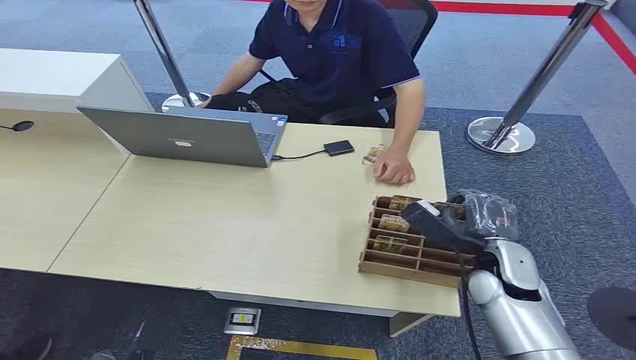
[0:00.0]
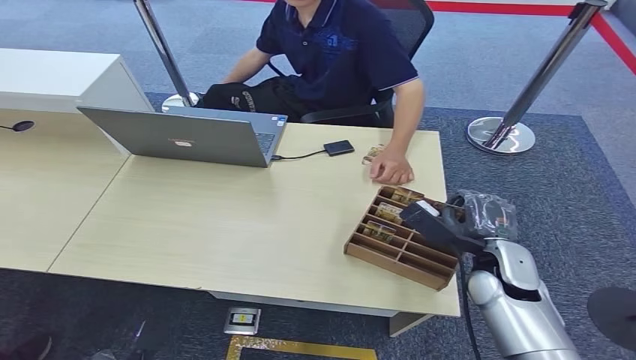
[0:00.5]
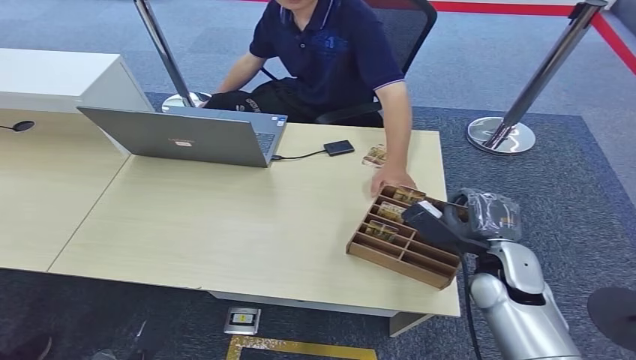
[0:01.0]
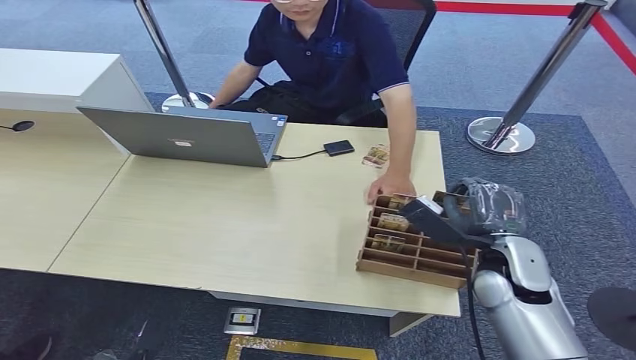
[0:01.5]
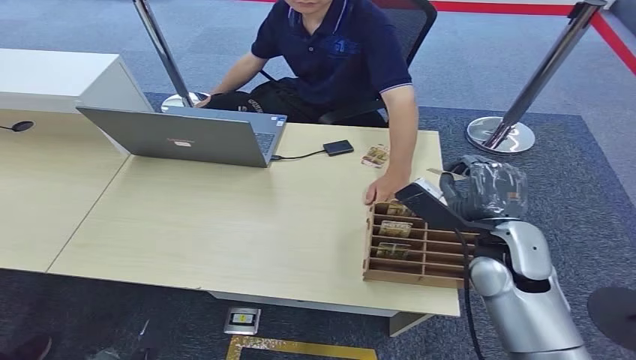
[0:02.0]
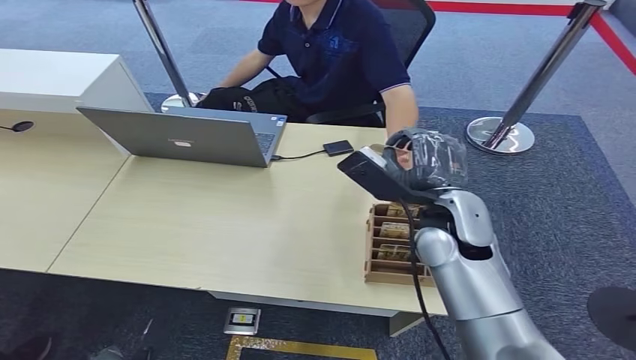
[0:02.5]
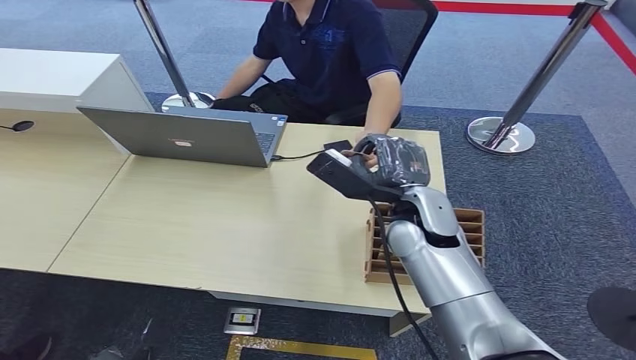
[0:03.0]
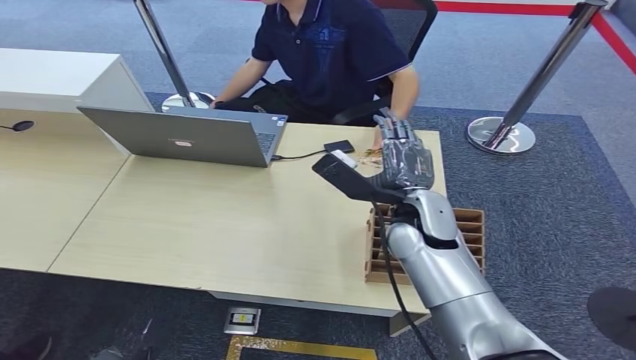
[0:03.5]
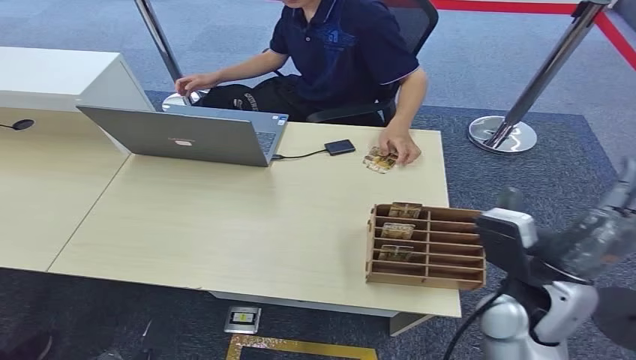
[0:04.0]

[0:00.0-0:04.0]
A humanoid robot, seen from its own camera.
Step, 0:00.0 to 0:01.5: Pick up the key card from the card box.
Step, 0:02.5 to 0:04.0: Hand the key card to the target.
0:02.0 to 0:04.0: The right hand travels backward by roughly 5 cm, and travels to the left and back again, roughly 10 cm each way.

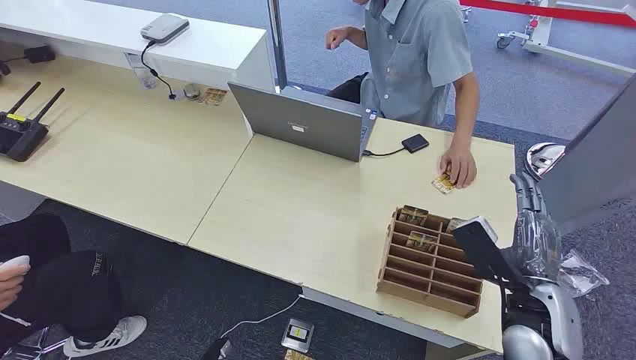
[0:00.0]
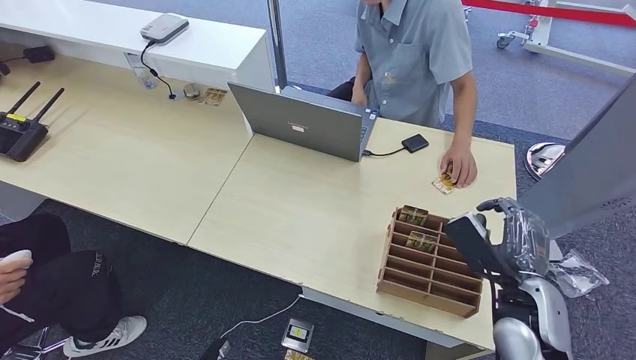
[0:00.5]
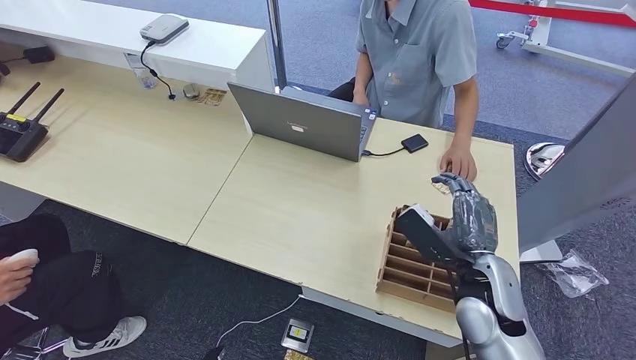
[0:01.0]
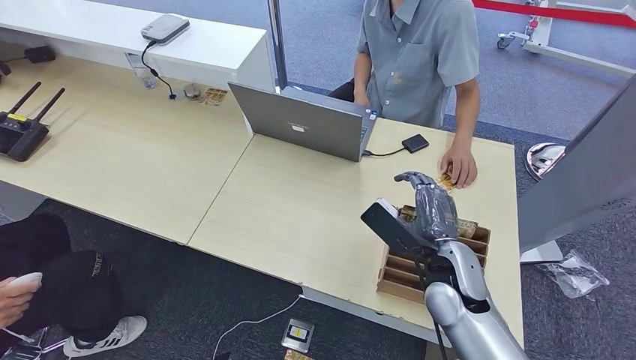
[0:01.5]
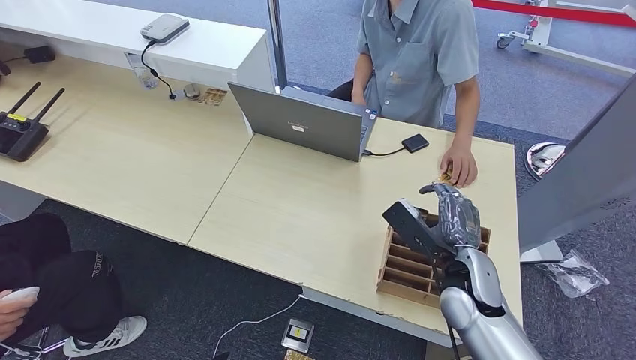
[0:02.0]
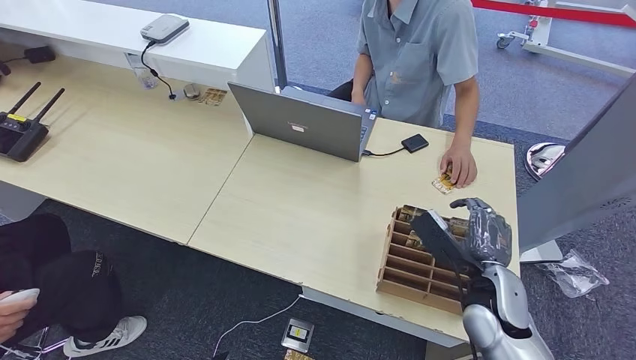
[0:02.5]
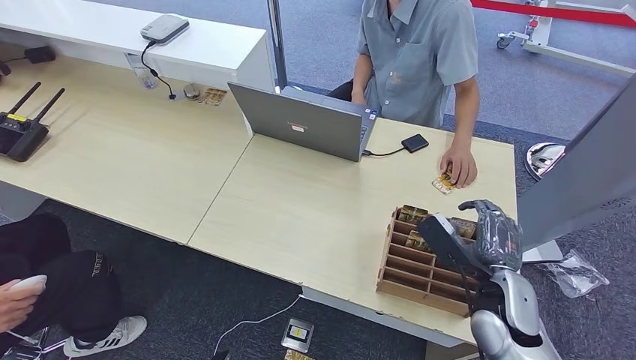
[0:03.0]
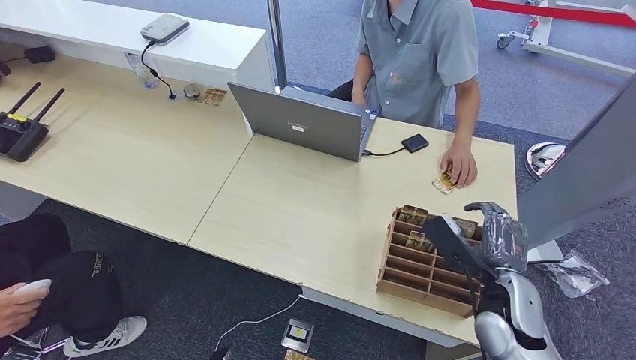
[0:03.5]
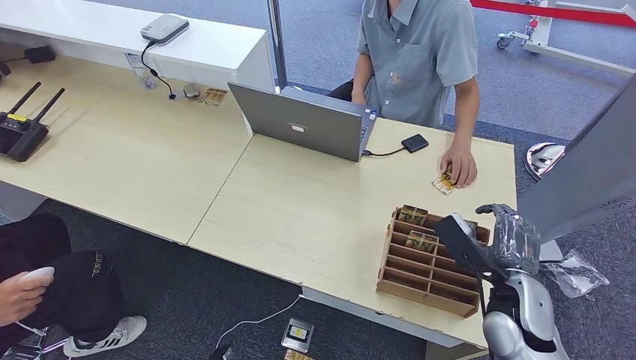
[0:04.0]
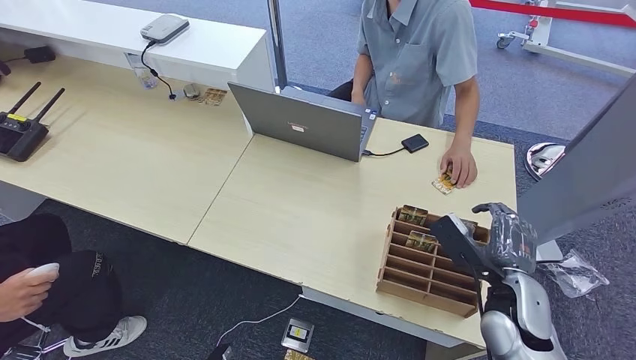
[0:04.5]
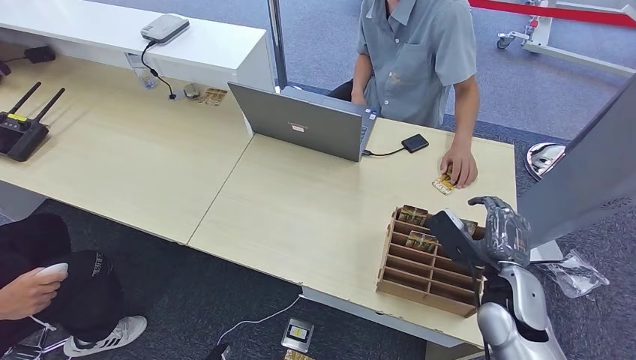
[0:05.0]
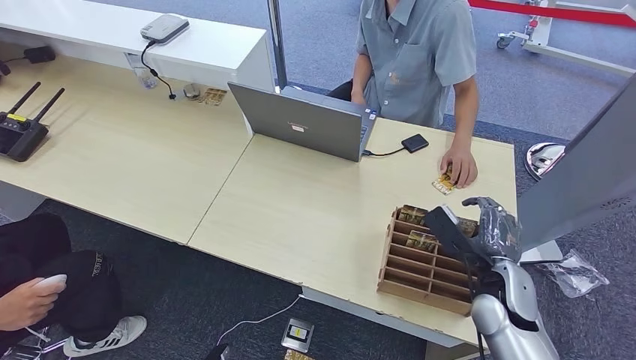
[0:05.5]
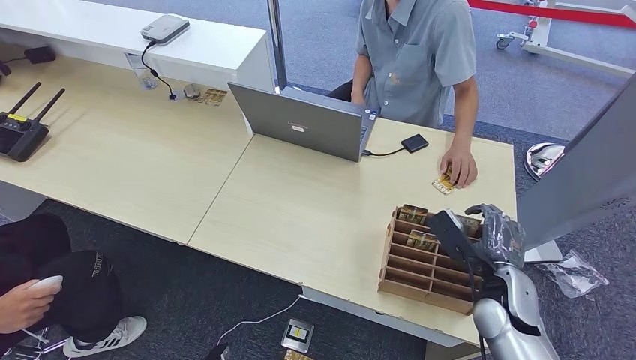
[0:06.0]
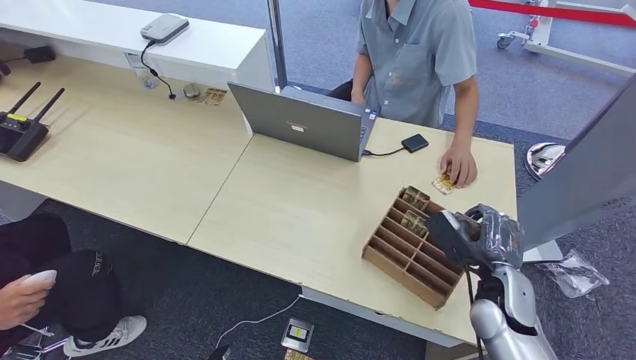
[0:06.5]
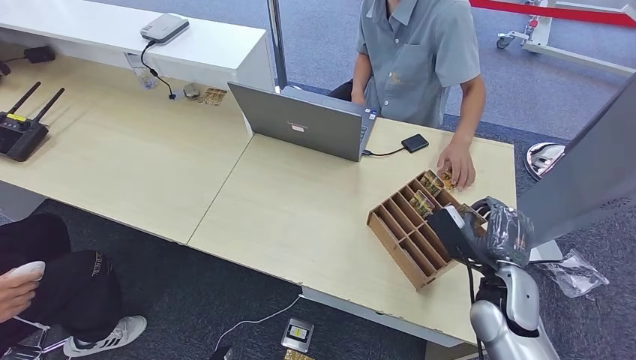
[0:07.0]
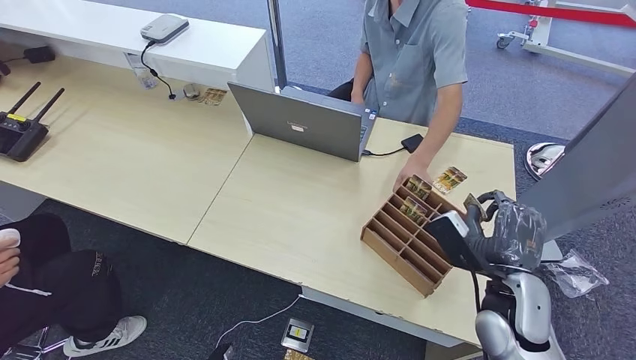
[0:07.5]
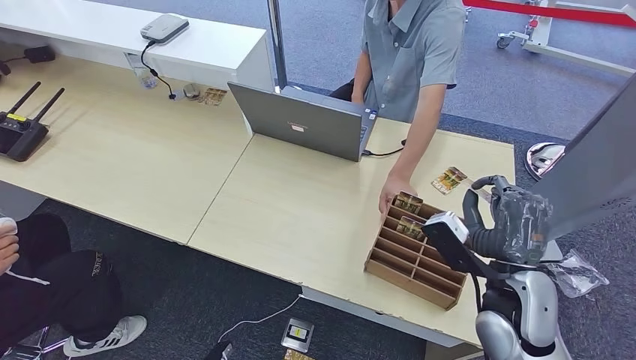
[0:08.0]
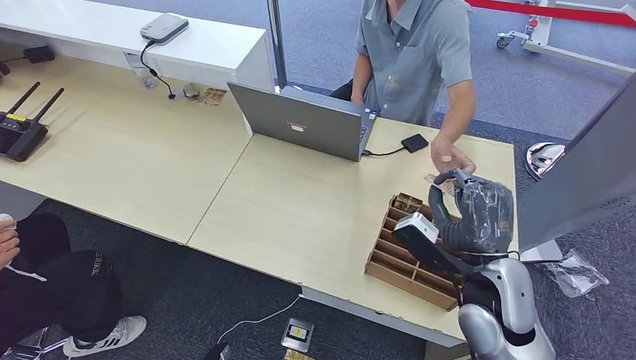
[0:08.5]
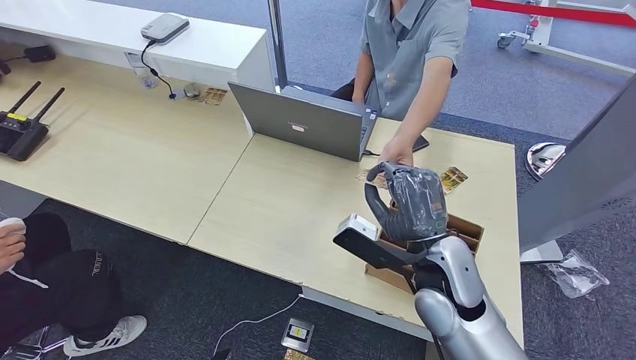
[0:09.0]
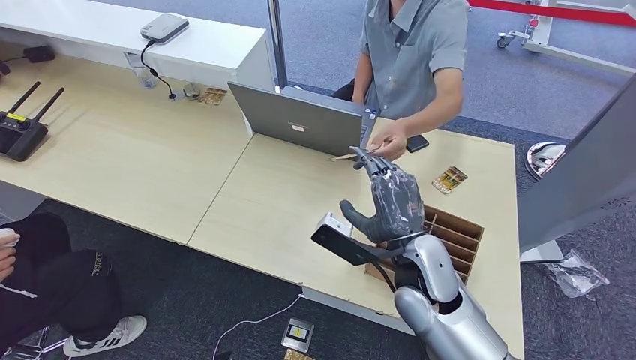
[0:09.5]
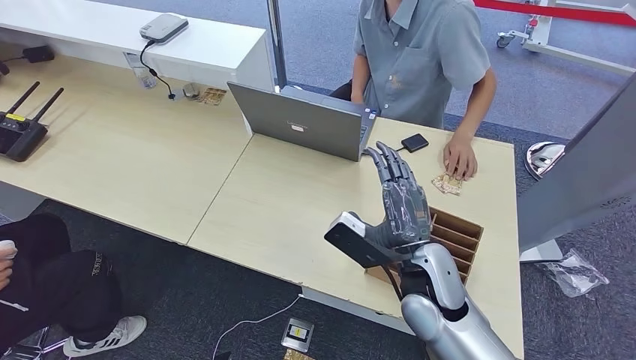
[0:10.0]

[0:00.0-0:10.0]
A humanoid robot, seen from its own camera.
Step, 0:00.0 to 0:08.0: Pick up the key card from the card box.
Step, 0:08.5 to 0:10.0: Hand the key card to the target.
0:02.0 to 0:04.0: The right hand heads to the right, covering approximately 5 cm.
0:04.0 to 0:06.0: There are only small adjustments of the hands.
0:06.0 to 0:08.0: The right hand moves upward, roughly 10 cm.
0:08.0 to 0:10.0: The right hand heads to the left, covering some 10 cm.
